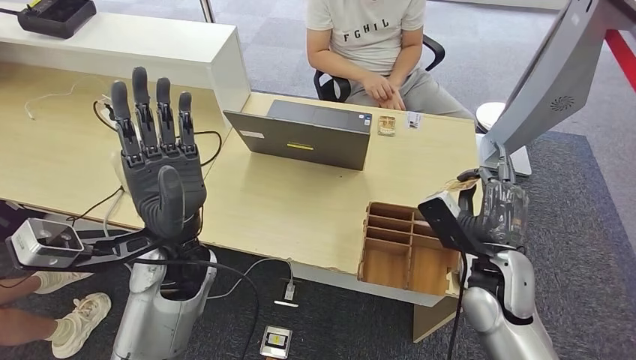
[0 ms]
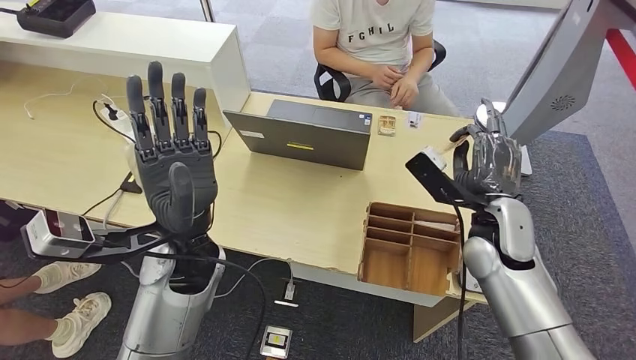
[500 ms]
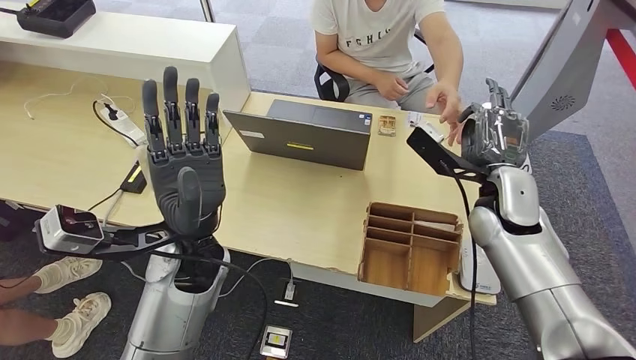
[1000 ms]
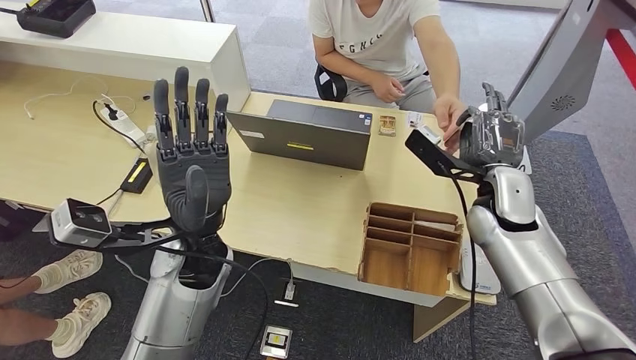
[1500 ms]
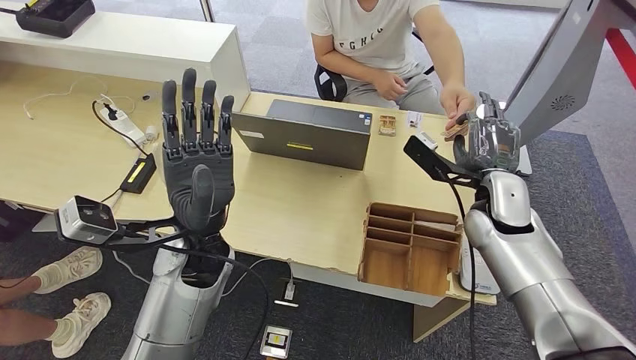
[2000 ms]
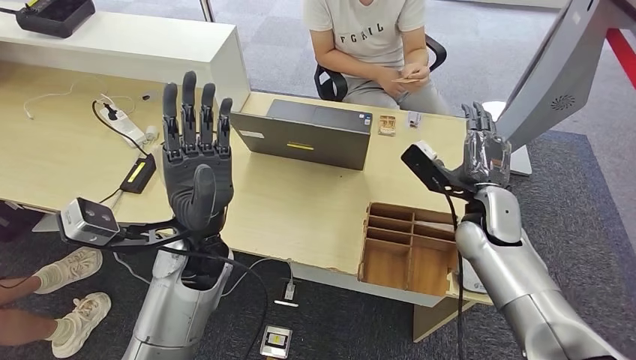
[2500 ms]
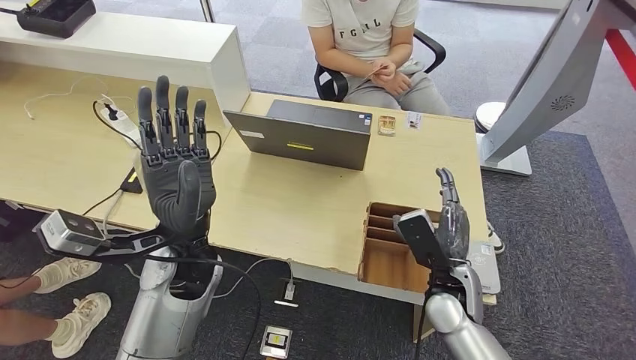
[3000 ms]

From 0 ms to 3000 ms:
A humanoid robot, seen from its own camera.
Step, from 500 ms to 3000 ms: Hand the room key to the person.
